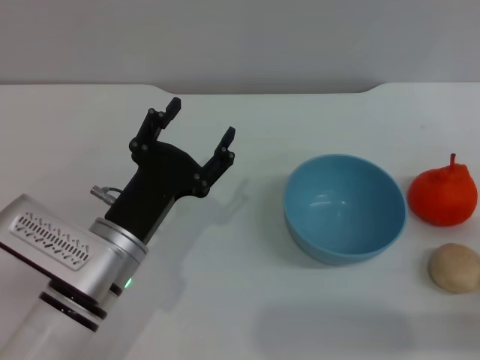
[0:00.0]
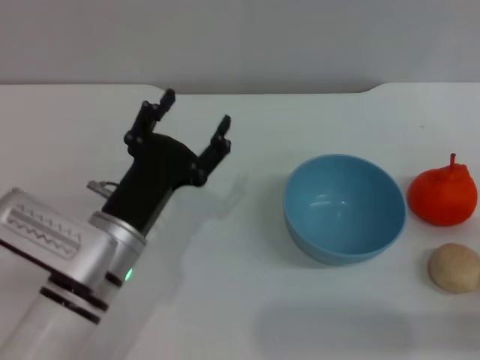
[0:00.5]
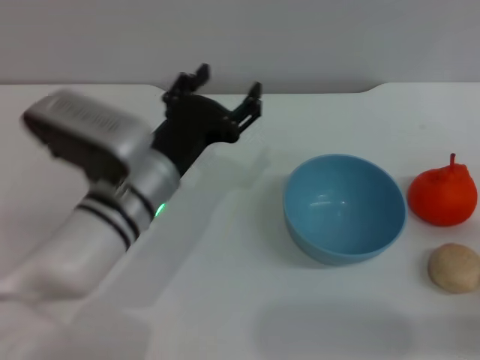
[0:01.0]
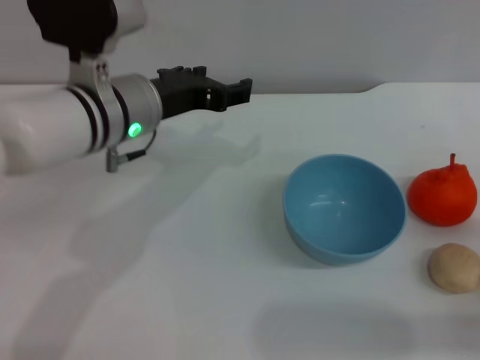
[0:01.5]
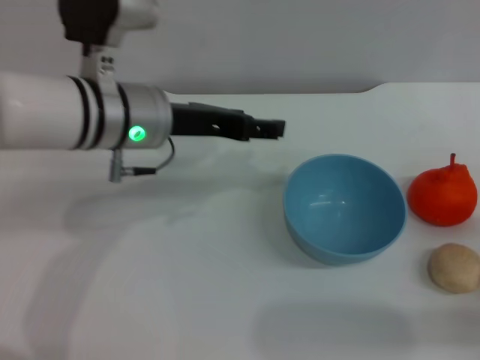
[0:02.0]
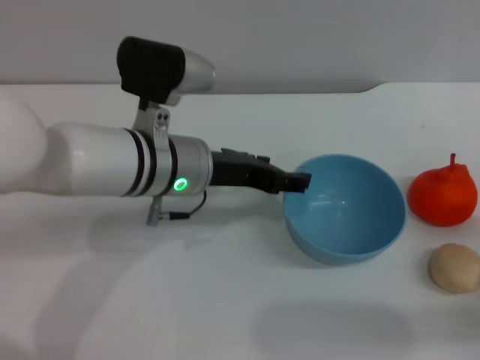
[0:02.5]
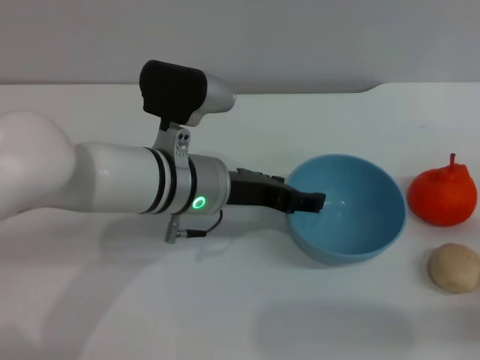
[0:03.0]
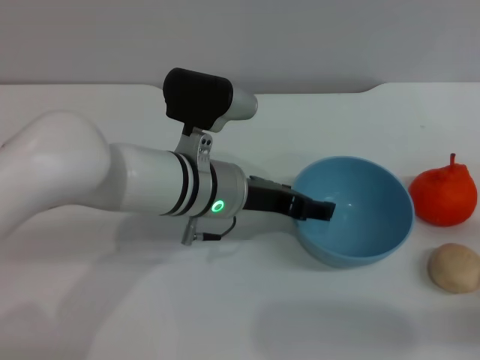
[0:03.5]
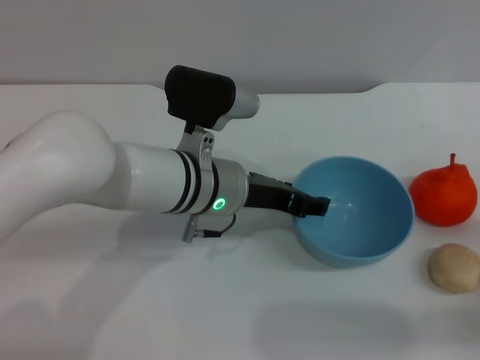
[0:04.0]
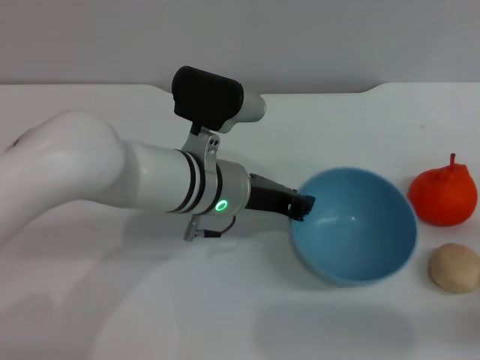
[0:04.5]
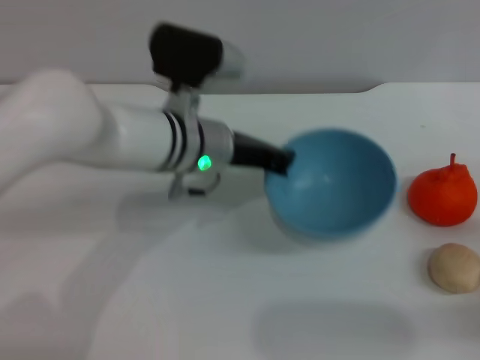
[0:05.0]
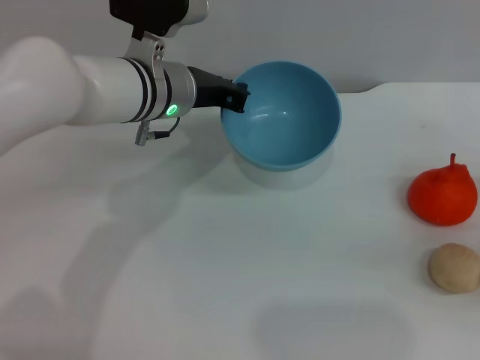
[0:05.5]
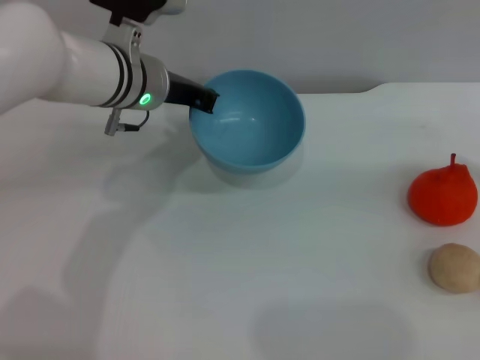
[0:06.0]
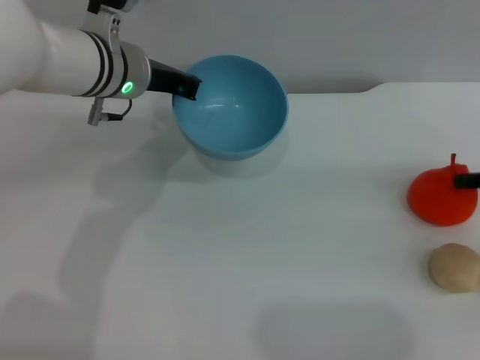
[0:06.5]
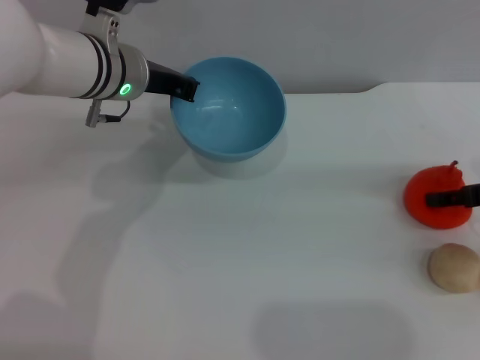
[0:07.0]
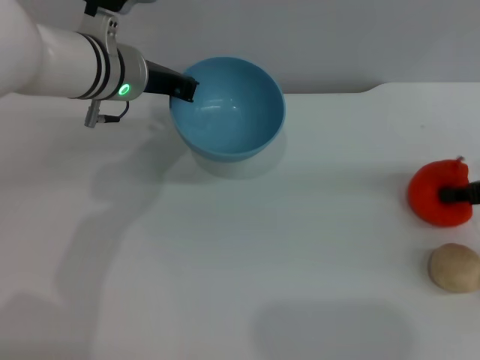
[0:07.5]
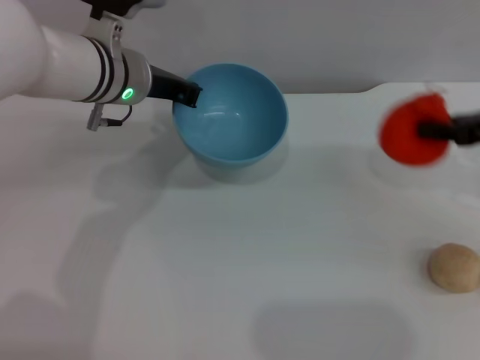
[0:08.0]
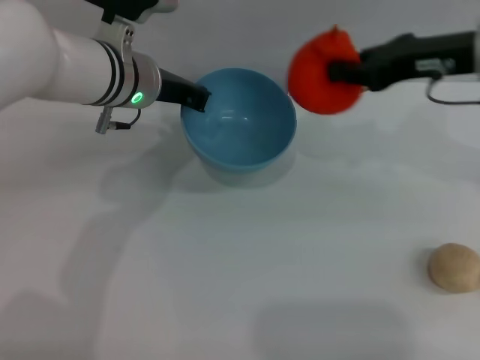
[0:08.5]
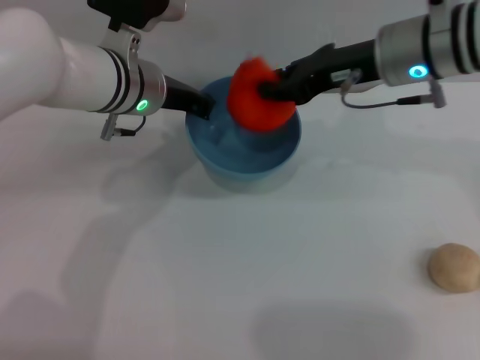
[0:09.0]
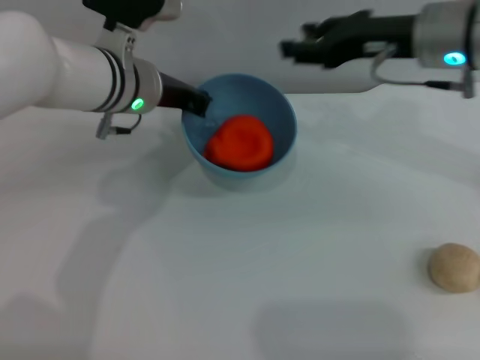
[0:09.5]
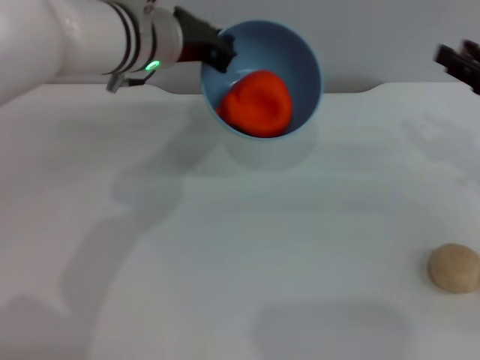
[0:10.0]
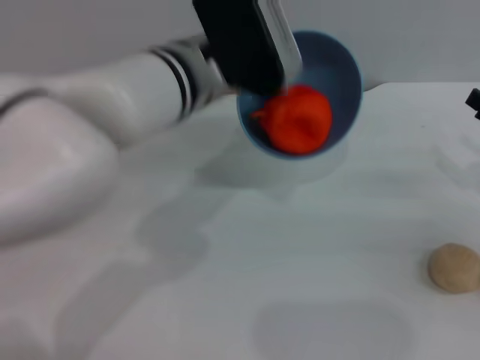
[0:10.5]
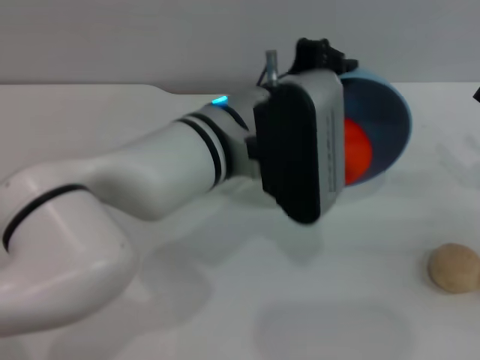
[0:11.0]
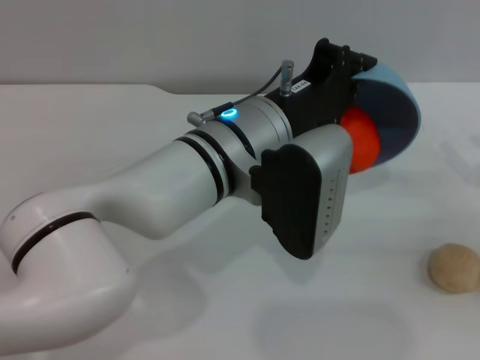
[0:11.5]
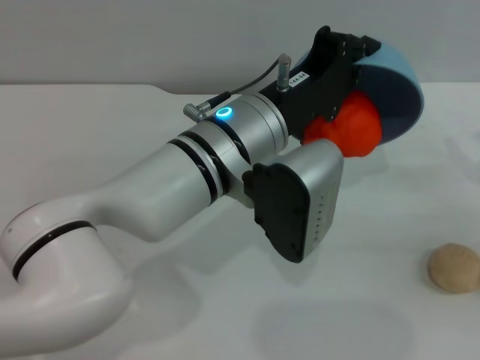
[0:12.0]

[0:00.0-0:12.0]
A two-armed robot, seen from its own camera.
Task of the whole recording: put the orange into the blue bowl and pour it out repeatedly.
Step, 0:00.0 to 0:05.0: Pick up the bowl with the left gripper.
Step, 0:05.5 to 0:08.0: Pick up the orange with the right gripper.
Step, 0:08.5 to 0:09.5: Place the orange into the bowl.
0:00.0 to 0:02.0: The left gripper heads upward and forward, covering about 15 cm.
0:02.0 to 0:04.0: The left gripper heads downward and to the right, covering roughly 10 cm.
0:04.0 to 0:06.0: The right gripper shifts some 15 cm upward and forward. Meanwhile the left gripper shifts roughly 10 cm forward, to the left and upward, and closes its fingers.
0:06.0 to 0:08.0: The right gripper travels to the left by about 5 cm, and closes up.
0:08.0 to 0:10.0: The right gripper reaches approximately 15 cm to the left, then returns, and opens its fingers. The left gripper ends up approximately 5 cm from where it was.
0:10.0 to 0:12.0: The right gripper changes place by about 5 cm, while the left gripper heads backward and to the right, covering approximately 15 cm.

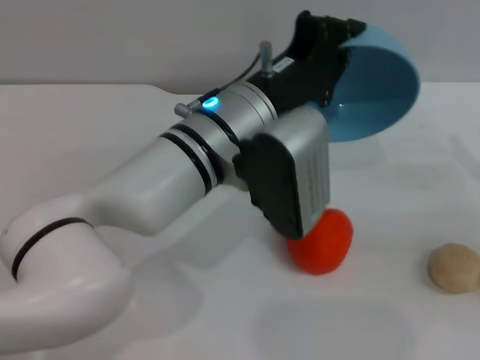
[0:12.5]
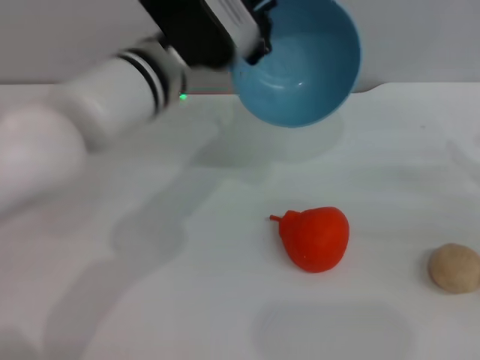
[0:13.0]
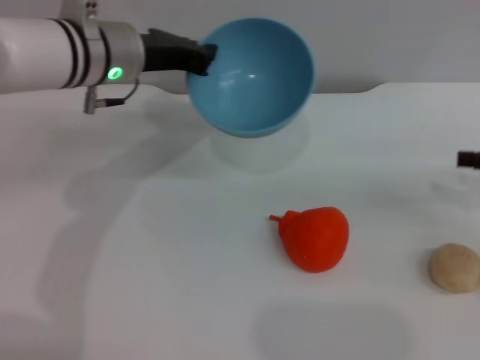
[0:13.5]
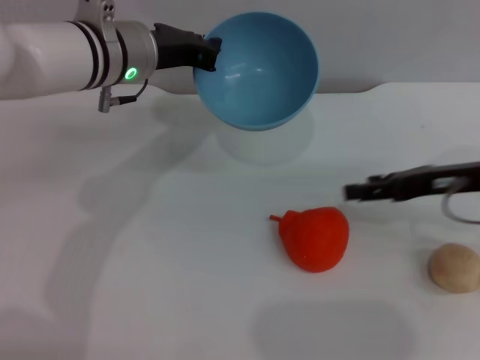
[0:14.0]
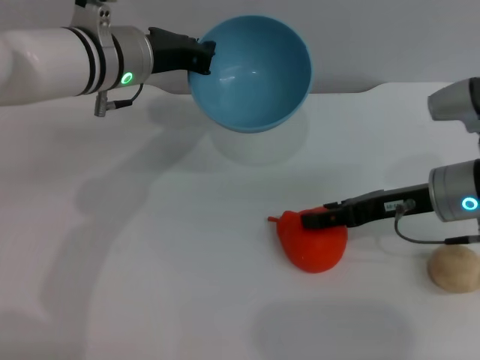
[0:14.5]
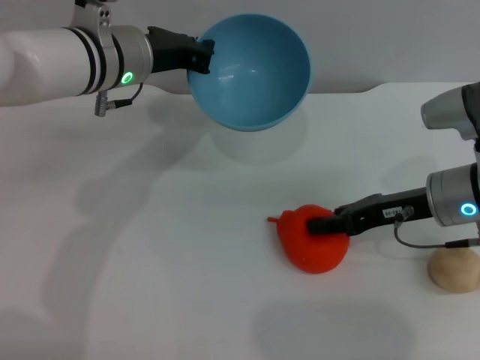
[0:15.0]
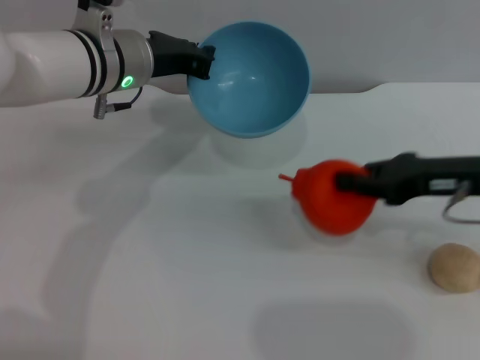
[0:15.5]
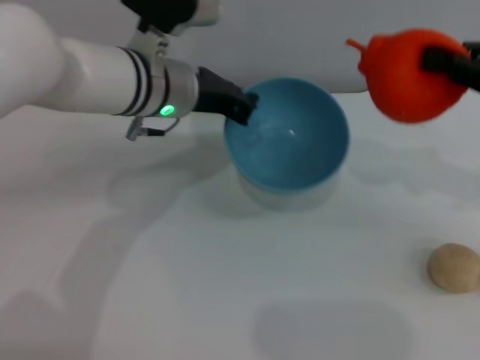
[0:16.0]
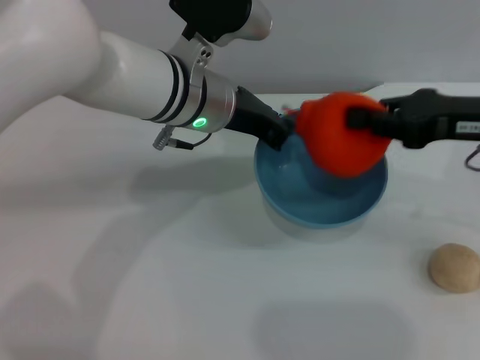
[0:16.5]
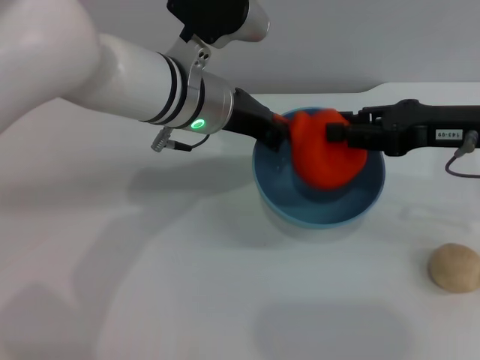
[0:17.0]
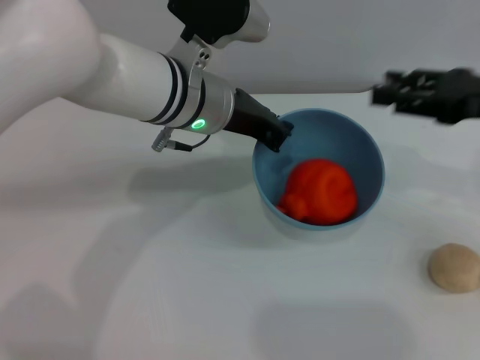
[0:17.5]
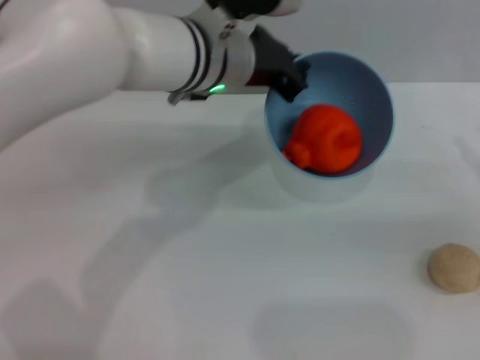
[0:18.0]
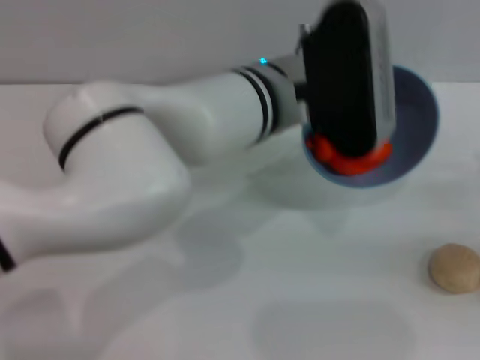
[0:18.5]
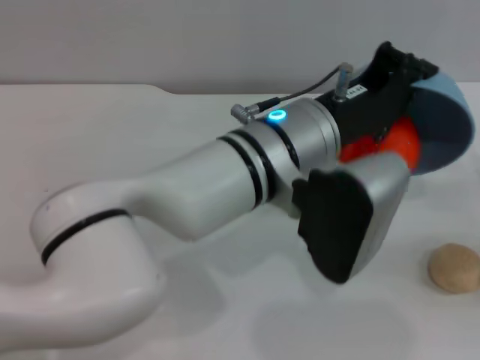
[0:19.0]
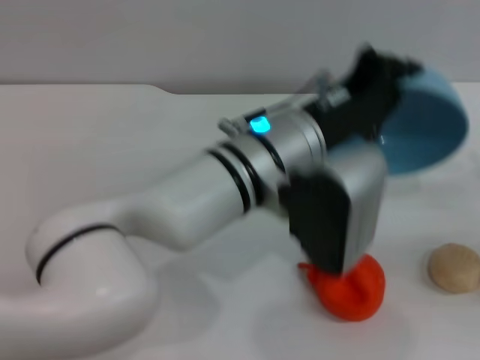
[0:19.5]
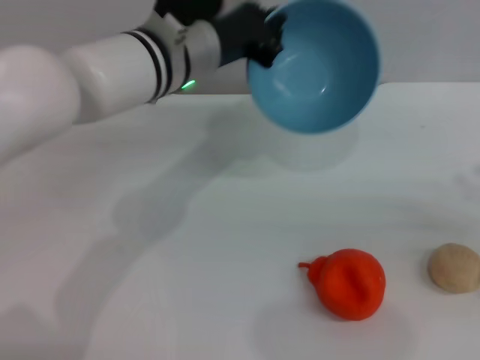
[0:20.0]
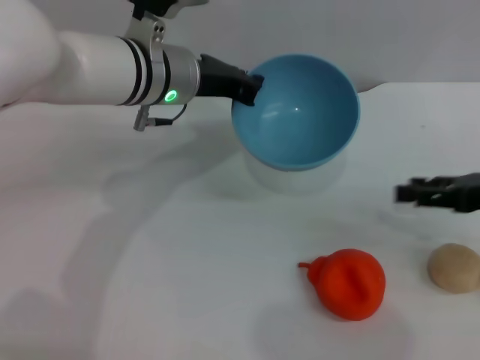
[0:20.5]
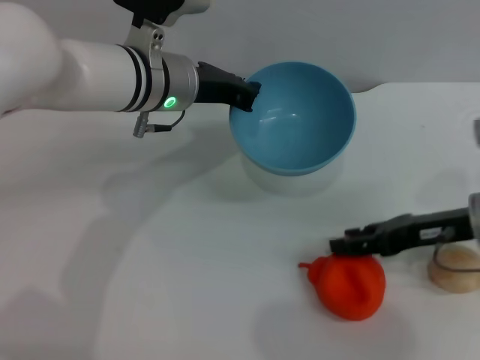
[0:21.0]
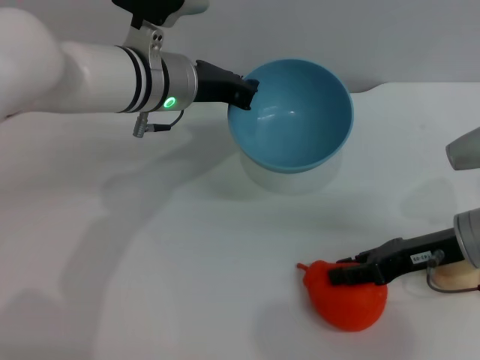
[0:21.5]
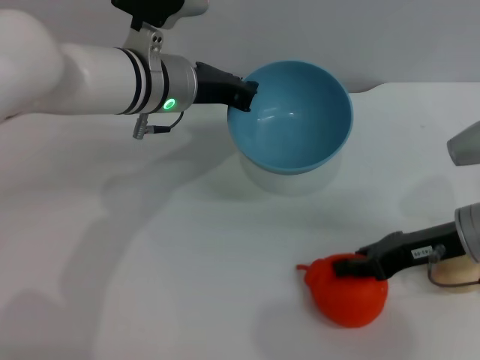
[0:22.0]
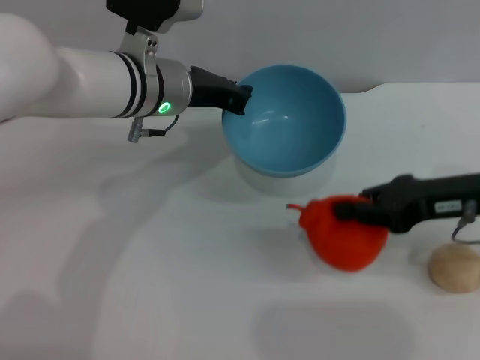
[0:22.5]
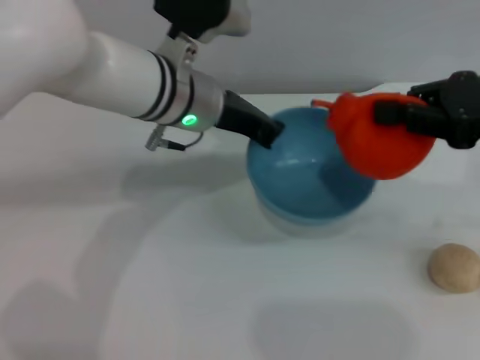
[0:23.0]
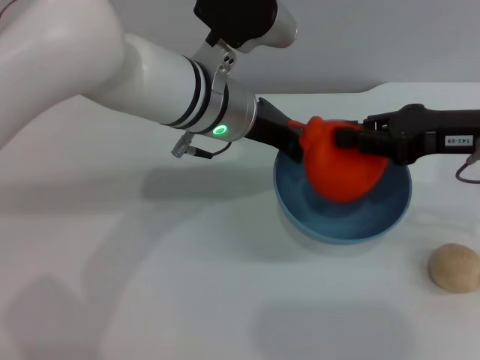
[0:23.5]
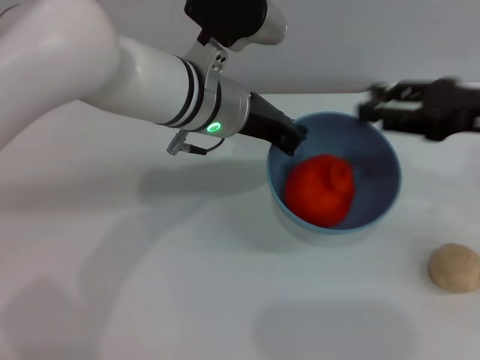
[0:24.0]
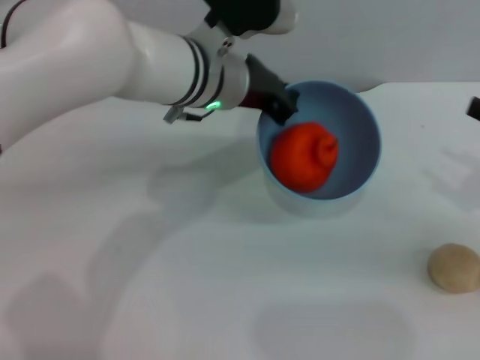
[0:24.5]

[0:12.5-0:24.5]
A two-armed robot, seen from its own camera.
Task of the whole recording: put the orange into the blue bowl and pour it out repeatedly.
Step, 0:13.5 to 0:15.5: Pick up the orange with the right gripper.
Step, 0:16.0 to 0:17.5: Place the orange into the bowl.
Step, 0:18.0 to 0:19.5: Pour the orange out of the bowl.
Step, 0:20.0 to 0:22.5: Pick up the orange with the right gripper.
Step, 0:23.0 to 0:24.0: Place the orange into the bowl.
0:12.5 to 0:14.5: The right gripper moves to the left, roughly 15 cm; the left gripper heads forward and to the left, covering approximately 15 cm.
0:14.5 to 0:16.5: The right gripper moves upward, approximately 10 cm, and closes; the left gripper shifts approximately 5 cm to the right.
0:16.5 to 0:18.5: The right gripper moves to the right, downward and backward, about 15 cm, and opens up; the left gripper goes about 5 cm to the right.
0:18.5 to 0:20.5: The right gripper shifts some 5 cm to the left. The left gripper moves to the left and forward, some 15 cm.
0:20.5 to 0:22.5: The right gripper goes roughly 5 cm to the left, and closes its fingers.
0:22.5 to 0:24.5: The right gripper travels to the right by some 10 cm, and opens. Meanwhile the left gripper moves to the right, some 5 cm.

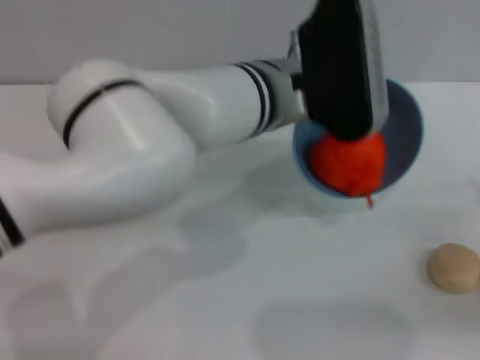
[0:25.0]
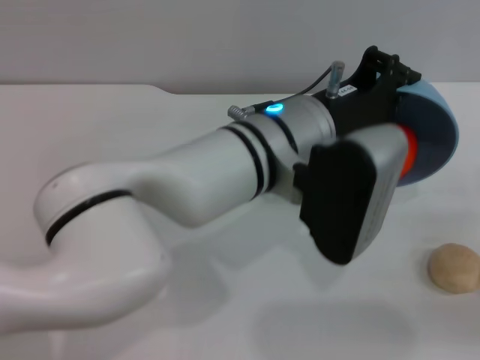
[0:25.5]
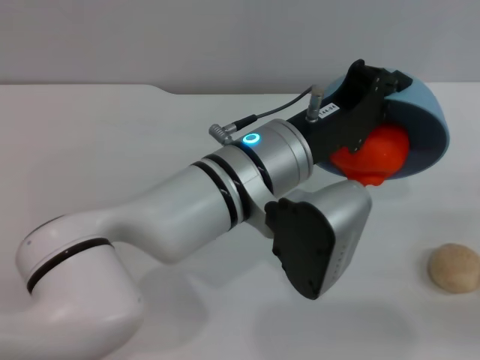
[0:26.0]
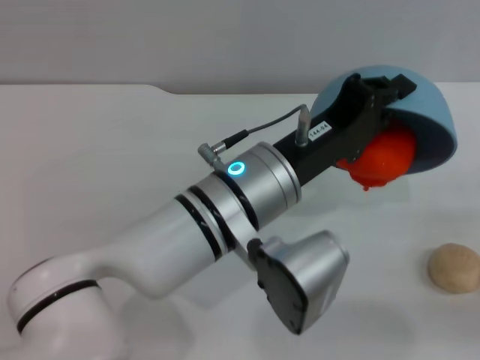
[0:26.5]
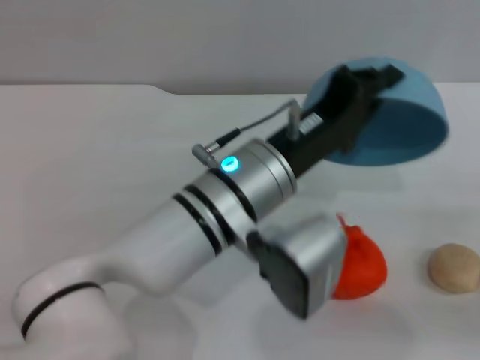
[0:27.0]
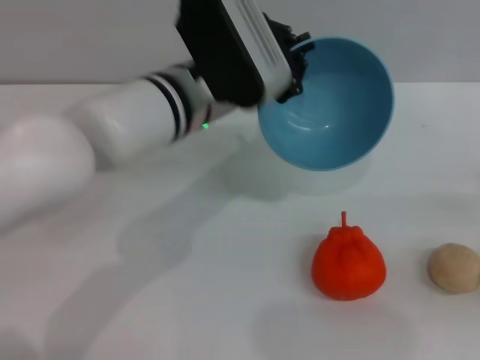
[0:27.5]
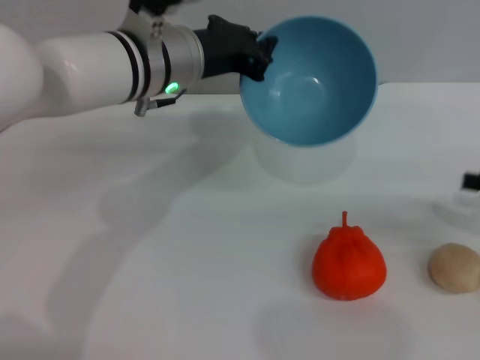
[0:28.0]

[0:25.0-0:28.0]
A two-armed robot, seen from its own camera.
Task of the whole recording: put the orange into the blue bowl and pour it out repeatedly.
Step, 0:25.0 to 0:27.5: Pour the orange out of the bowl.
0:25.0 to 0:26.5: The left gripper shifts some 10 cm backward.
0:26.5 to 0:28.0: The left gripper heads forward, to the left and upward, covering about 15 cm. Meanwhile the right gripper moves forward, approximately 5 cm.
